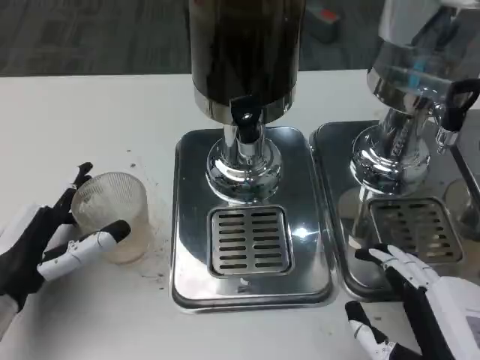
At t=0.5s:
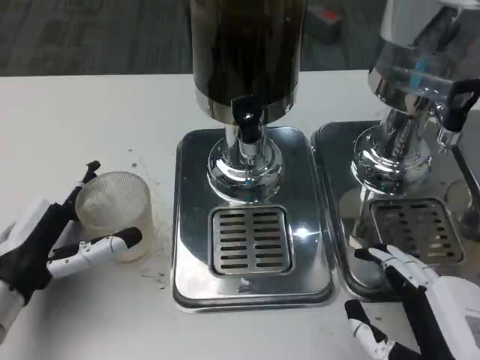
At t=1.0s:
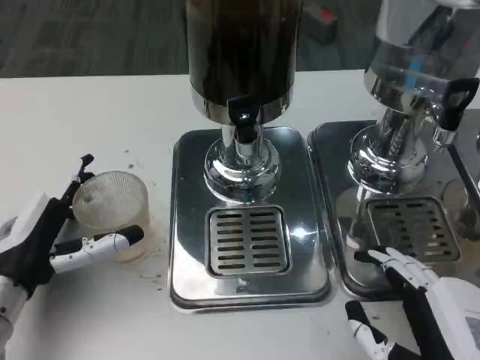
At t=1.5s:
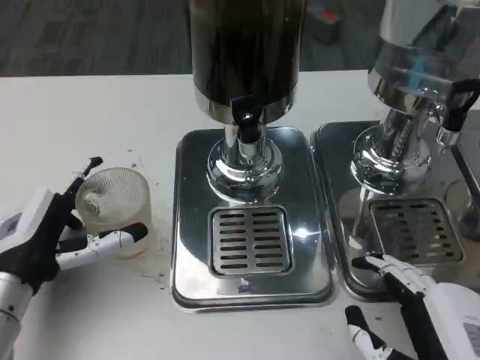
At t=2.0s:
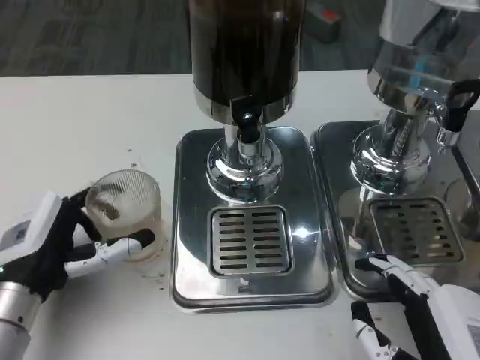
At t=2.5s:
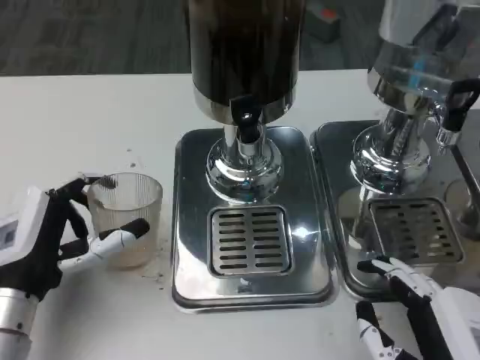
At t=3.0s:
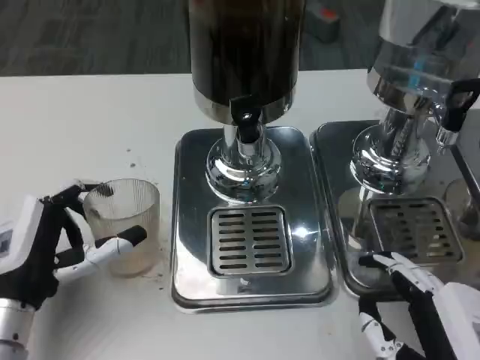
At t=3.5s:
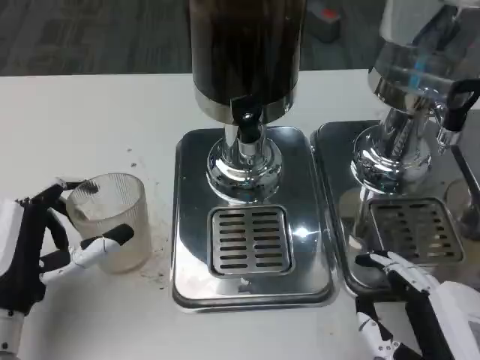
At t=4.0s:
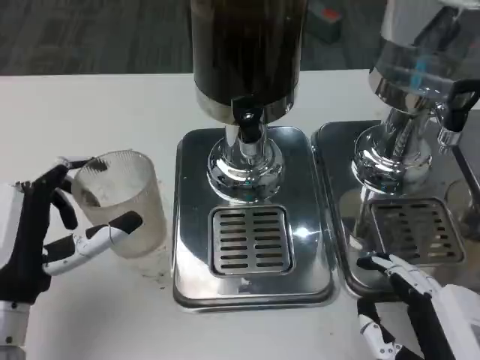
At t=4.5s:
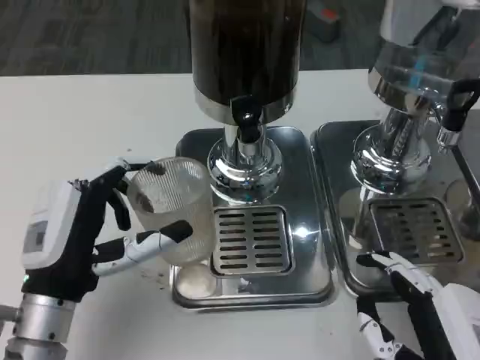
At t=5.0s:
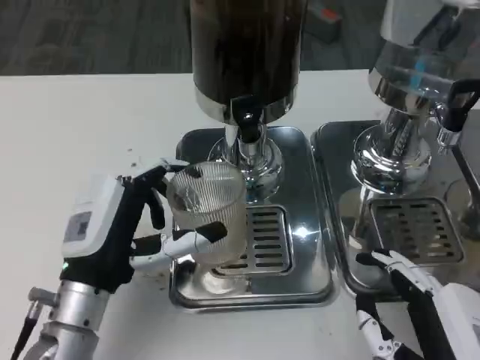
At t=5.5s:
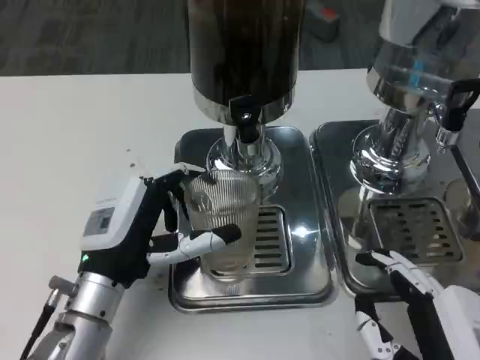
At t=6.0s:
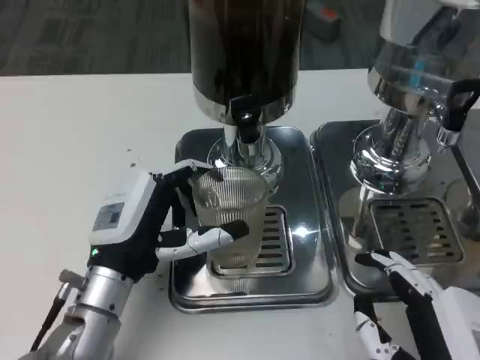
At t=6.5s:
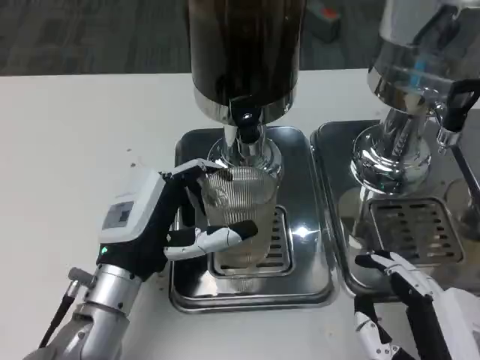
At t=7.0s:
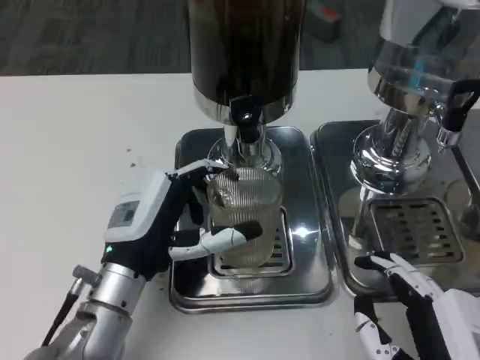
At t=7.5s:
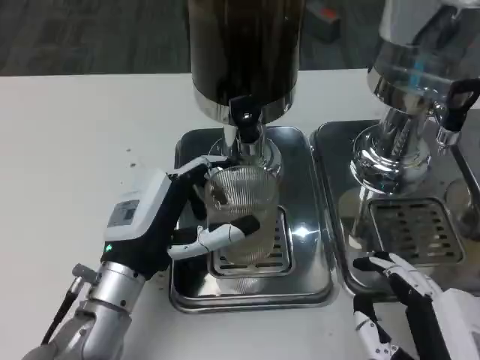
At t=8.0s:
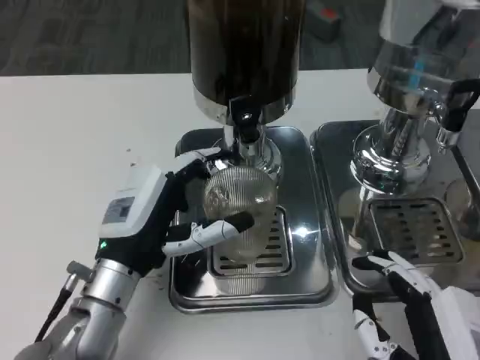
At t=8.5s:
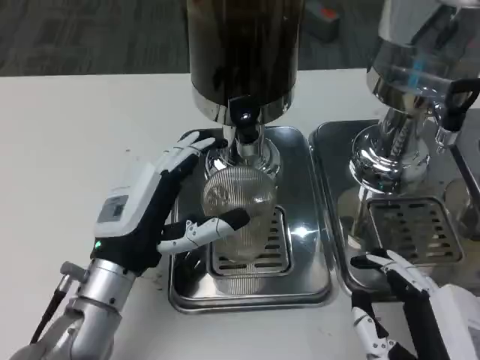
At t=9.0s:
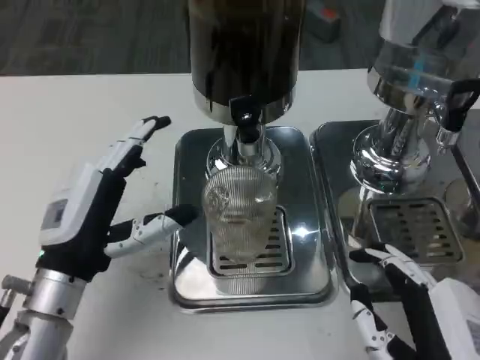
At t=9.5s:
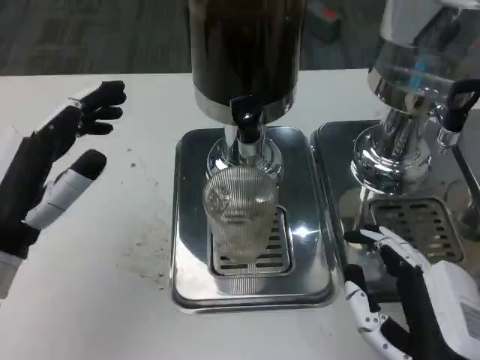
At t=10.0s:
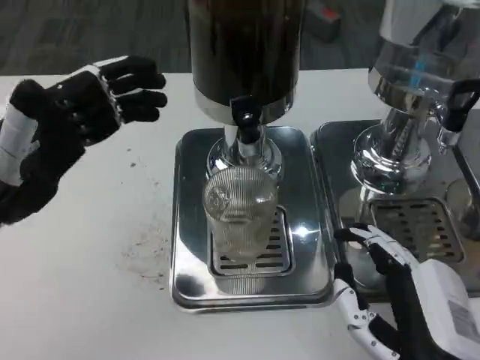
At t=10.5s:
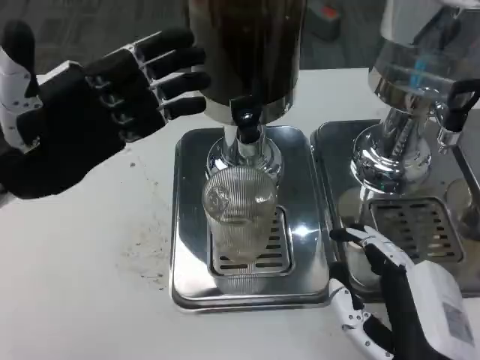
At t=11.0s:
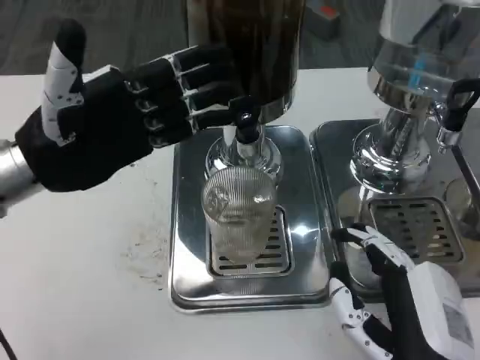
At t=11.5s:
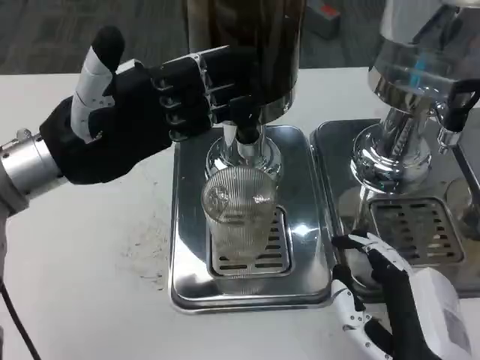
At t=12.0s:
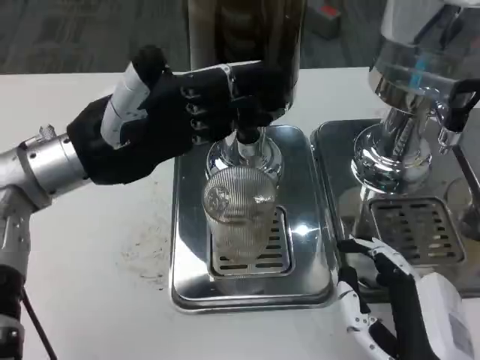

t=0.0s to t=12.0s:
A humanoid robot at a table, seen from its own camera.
Task of the whole recording: Grasp the cup under the faucet to collect the drink, then remove the cup.
t=0.0s to t=2.0s: The hands move only a little.
t=4.0s to t=6.0s: The left hand shifts about 5 cm to the right.
t=6.0s to t=8.0s: Both hands stay about where they are.
t=8.0s to t=10.0s: The left hand shifts some 15 cm to the left and upward.
t=10.0s to t=12.0s: The left hand travels forward and to the right by about 10 cm.

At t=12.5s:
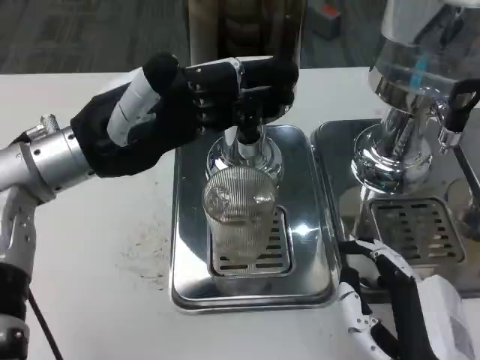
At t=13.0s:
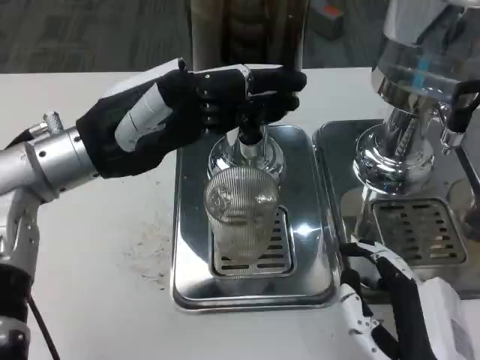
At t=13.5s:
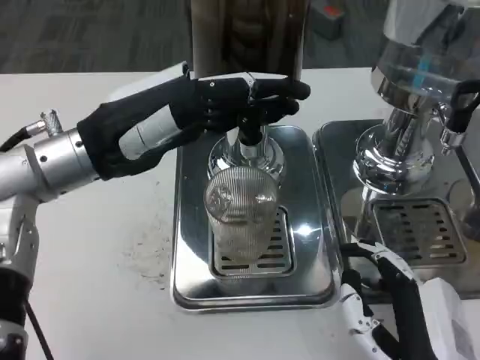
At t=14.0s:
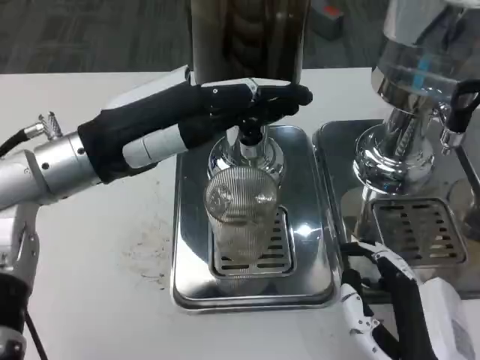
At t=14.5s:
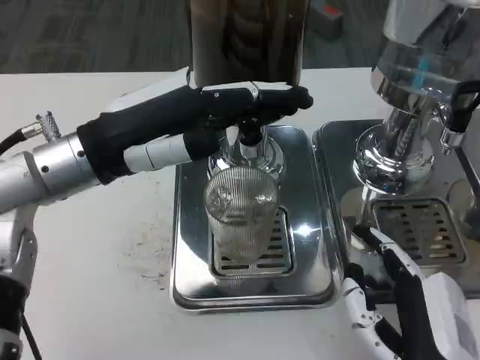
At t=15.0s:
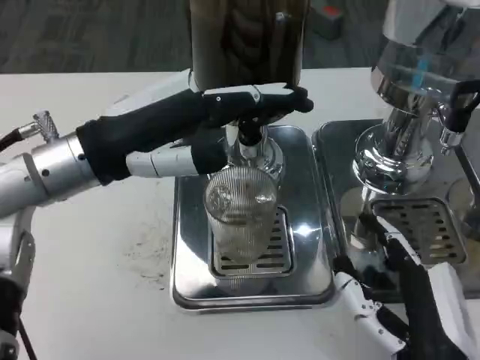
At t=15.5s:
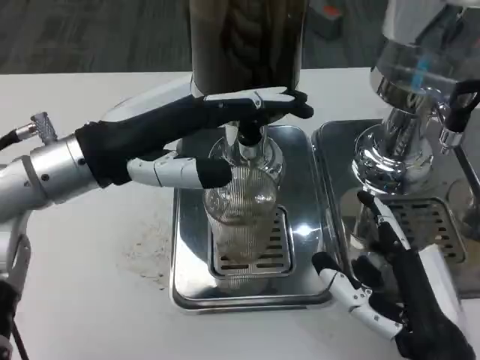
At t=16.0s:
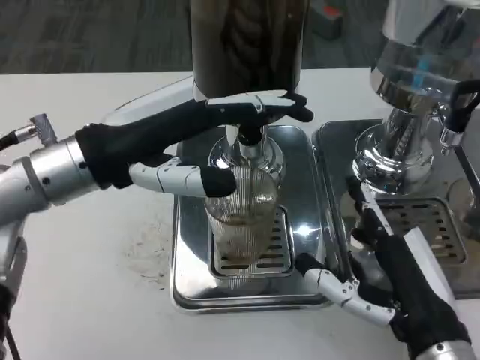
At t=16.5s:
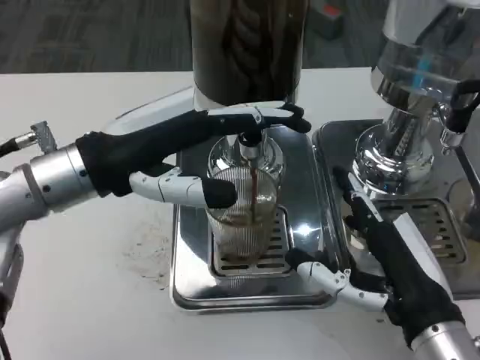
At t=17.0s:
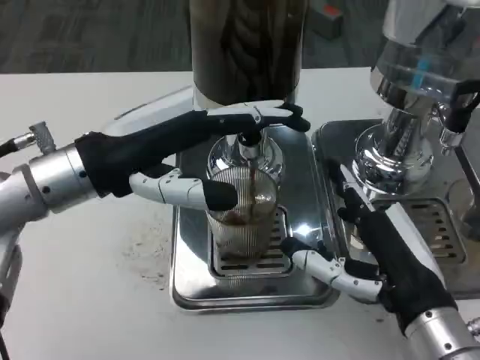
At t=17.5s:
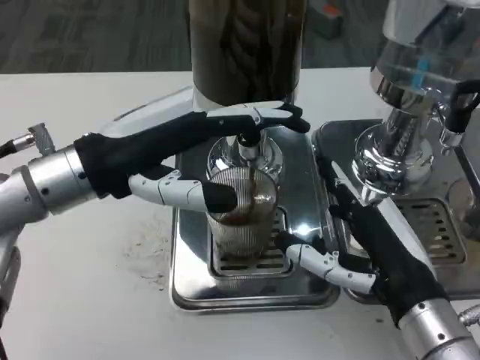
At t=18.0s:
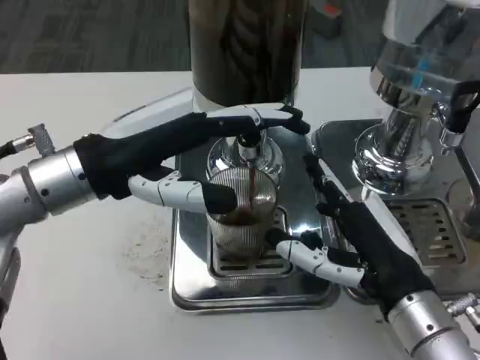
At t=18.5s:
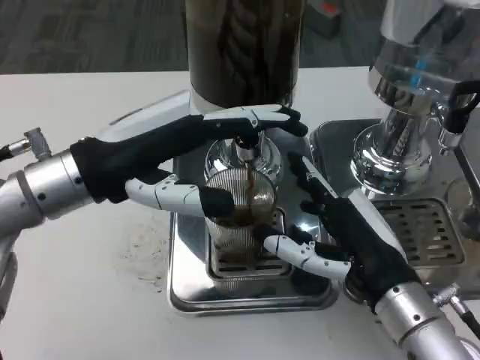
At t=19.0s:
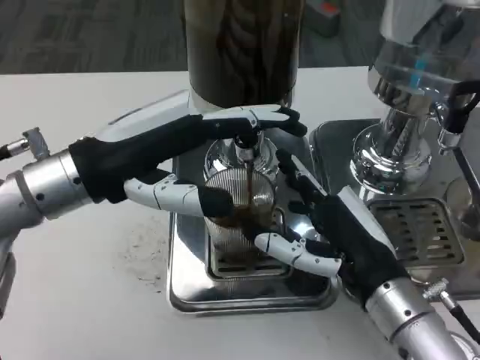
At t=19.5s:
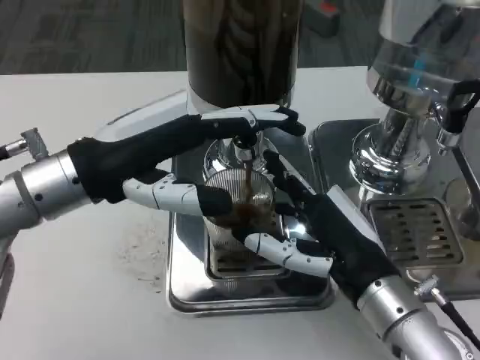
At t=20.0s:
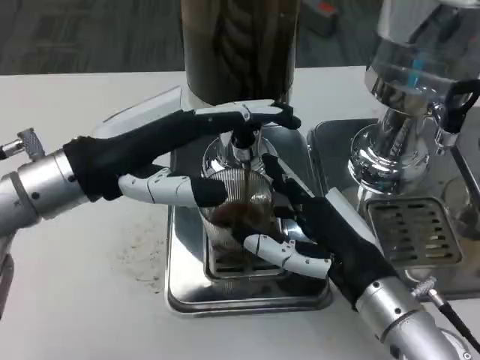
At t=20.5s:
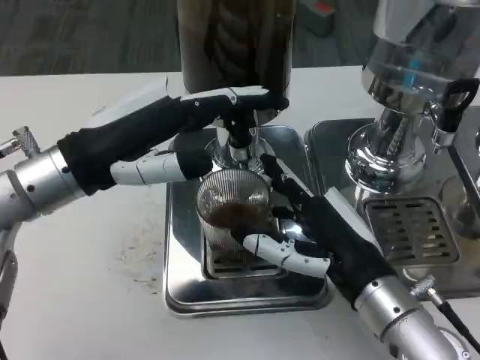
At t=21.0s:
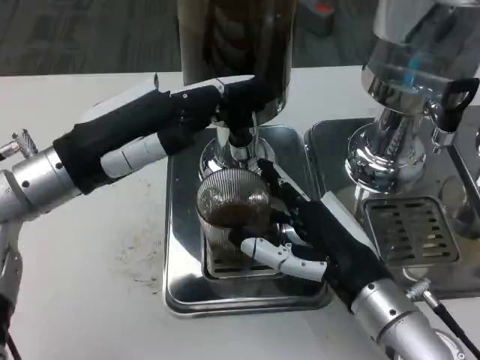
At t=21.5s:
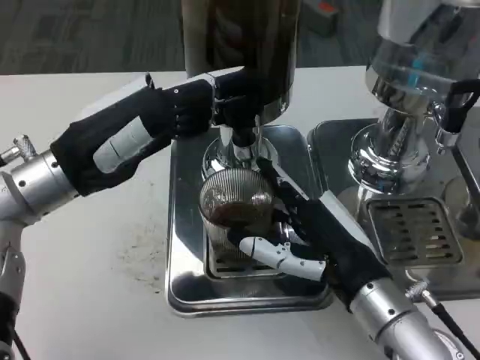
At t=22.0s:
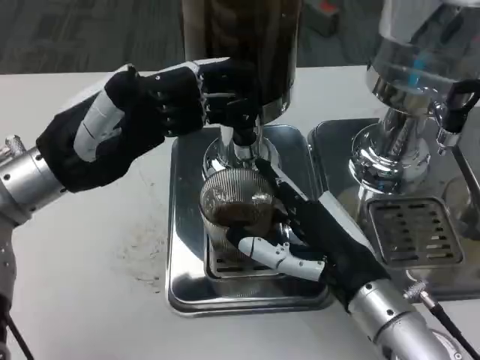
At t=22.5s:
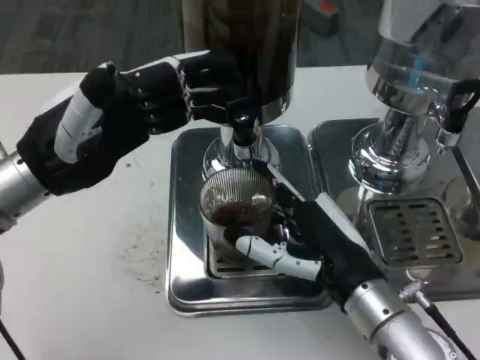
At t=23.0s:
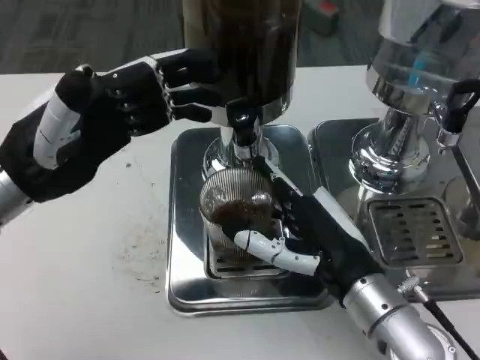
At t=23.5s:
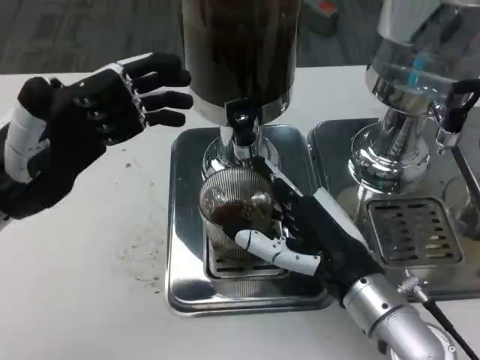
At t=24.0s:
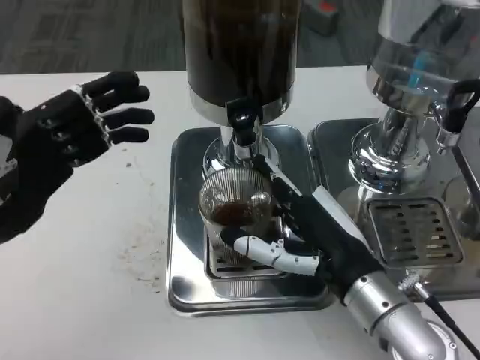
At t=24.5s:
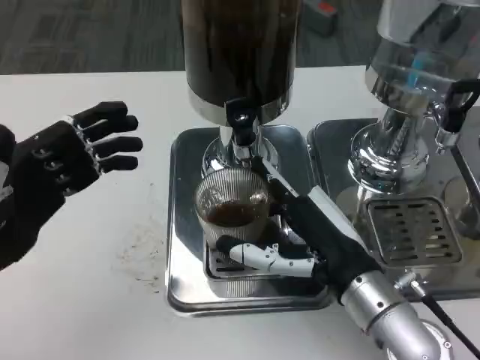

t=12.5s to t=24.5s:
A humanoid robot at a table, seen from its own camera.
Task of the whole recording: Grasp the cup under the faucet to collect the drink, then remove the cup.
t=14.5s to t=16.5s: The right hand travels forward by about 5 cm.
t=22.5s to t=24.5s: The left hand heads backward and to the left, covering roughly 10 cm.

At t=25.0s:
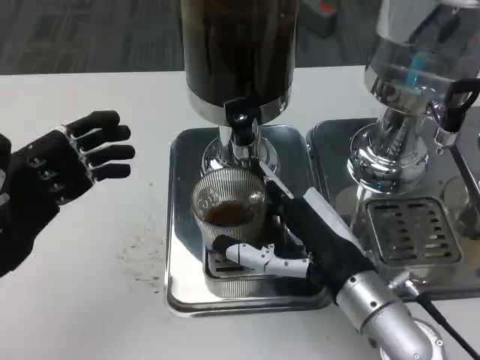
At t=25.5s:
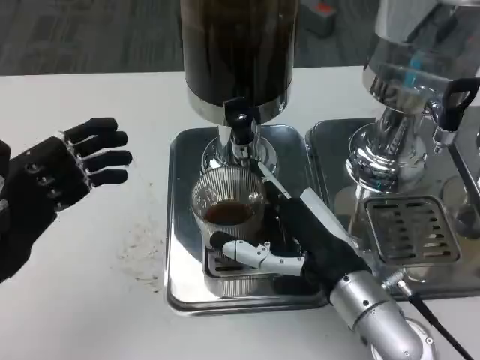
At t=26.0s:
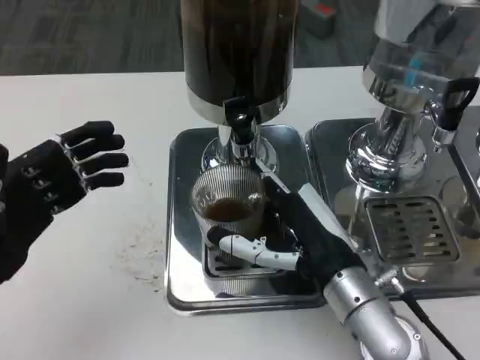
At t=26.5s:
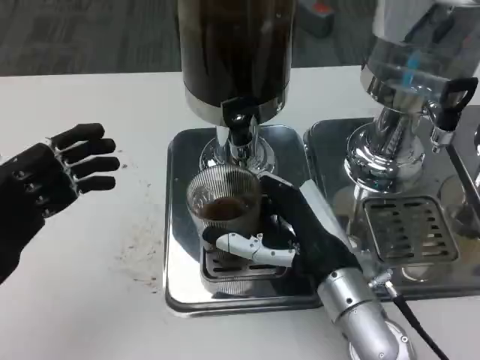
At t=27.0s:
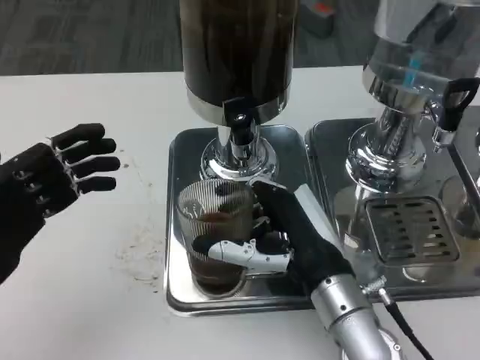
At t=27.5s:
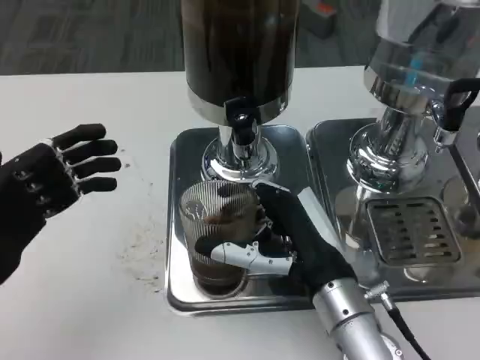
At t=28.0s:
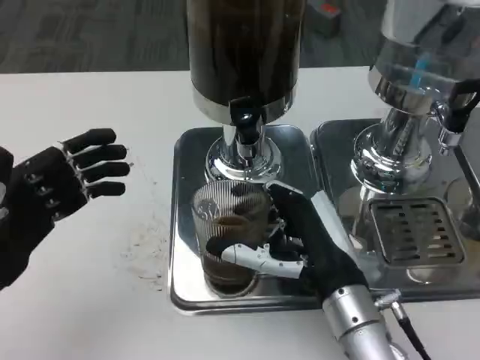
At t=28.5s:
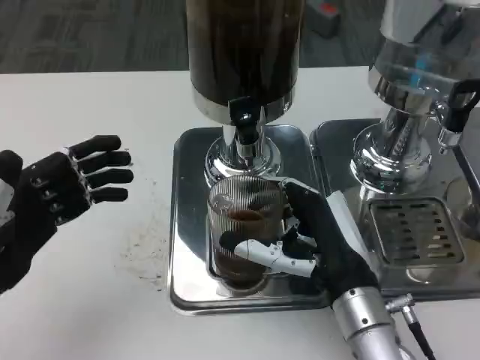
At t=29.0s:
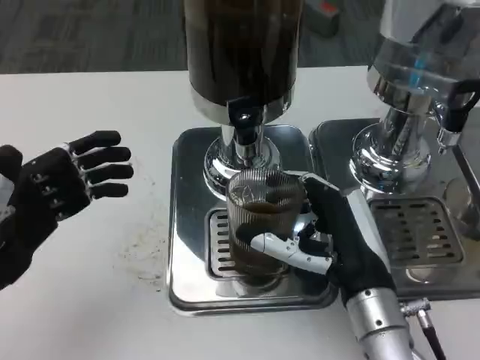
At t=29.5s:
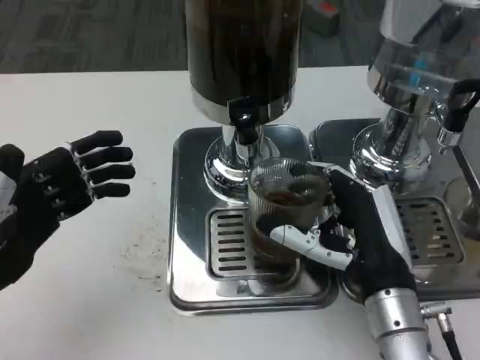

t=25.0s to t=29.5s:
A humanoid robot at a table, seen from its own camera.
Task of the whole recording: Grasp the cup under the faucet to collect the drink, then remove the cup.
t=25.0s to t=27.0s: The hands move only a little.
